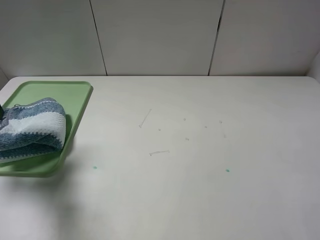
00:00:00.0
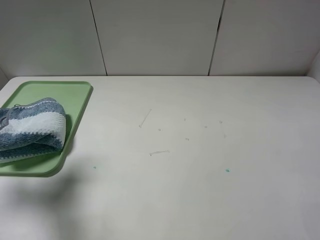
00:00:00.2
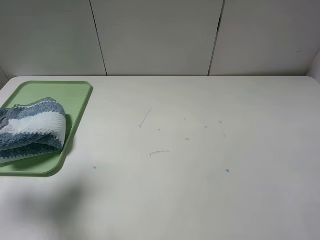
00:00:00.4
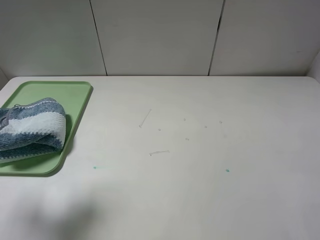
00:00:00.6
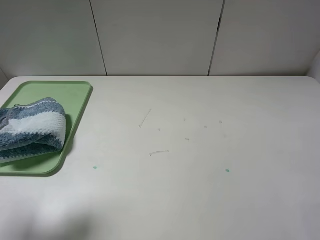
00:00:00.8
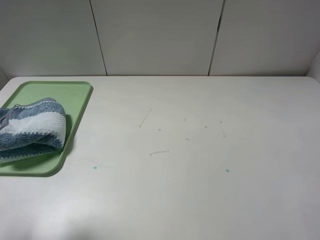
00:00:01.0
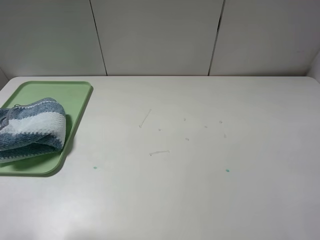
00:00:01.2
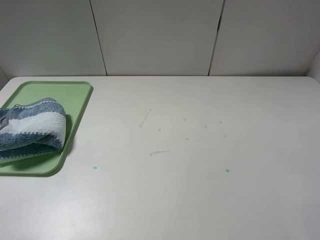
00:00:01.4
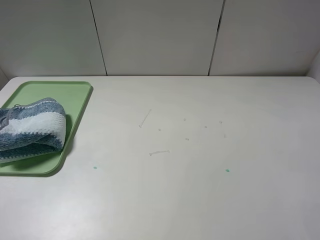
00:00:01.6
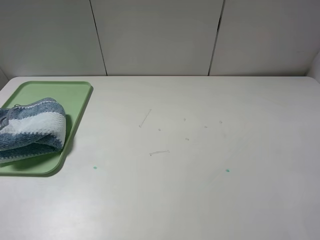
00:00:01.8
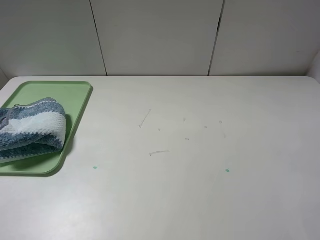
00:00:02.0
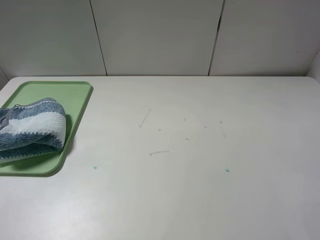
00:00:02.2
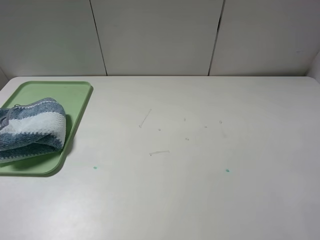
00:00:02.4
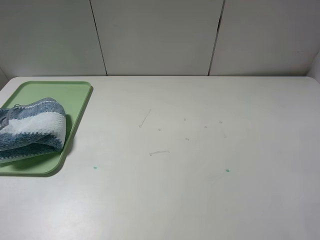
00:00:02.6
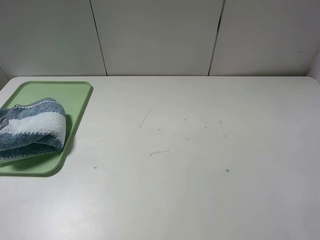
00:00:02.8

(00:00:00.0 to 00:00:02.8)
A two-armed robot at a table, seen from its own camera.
00:00:00.0 - 00:00:01.4: The left gripper heads backward, covering some 20 cm.
